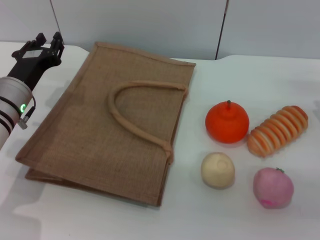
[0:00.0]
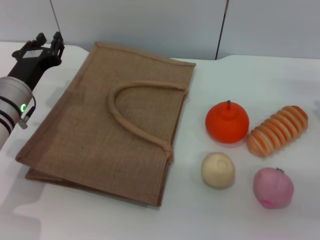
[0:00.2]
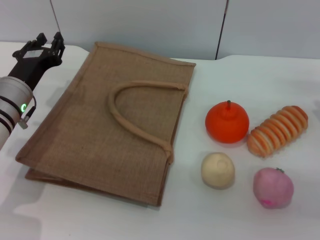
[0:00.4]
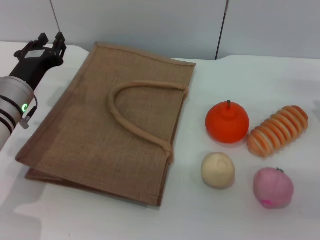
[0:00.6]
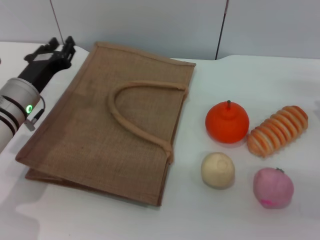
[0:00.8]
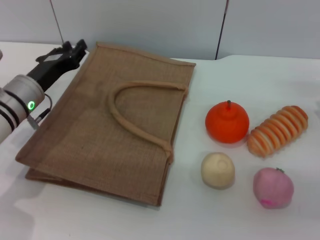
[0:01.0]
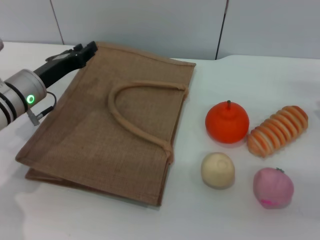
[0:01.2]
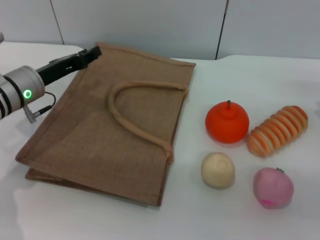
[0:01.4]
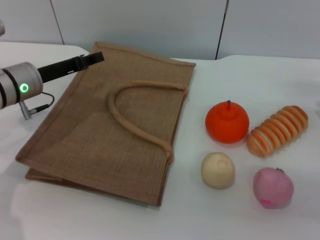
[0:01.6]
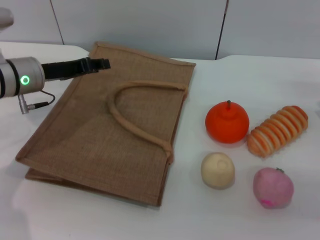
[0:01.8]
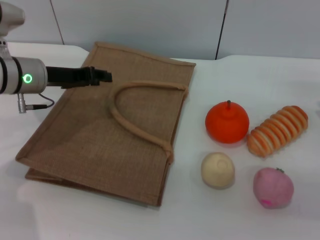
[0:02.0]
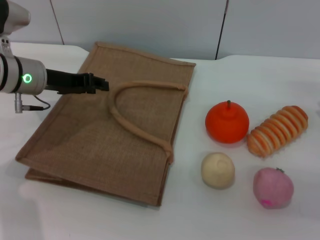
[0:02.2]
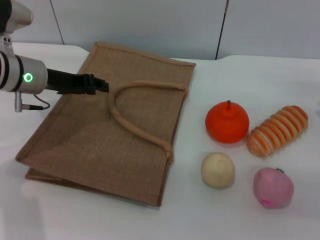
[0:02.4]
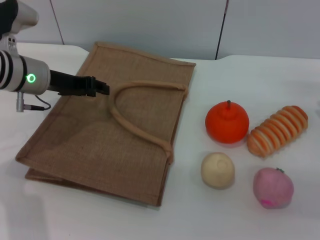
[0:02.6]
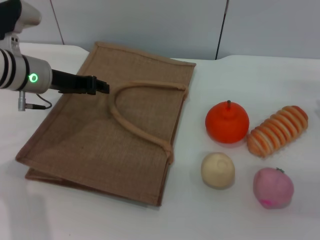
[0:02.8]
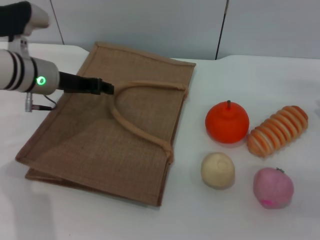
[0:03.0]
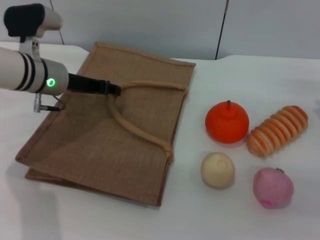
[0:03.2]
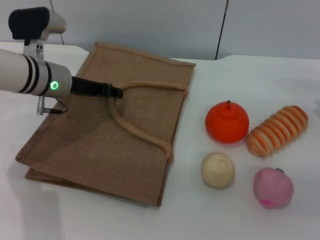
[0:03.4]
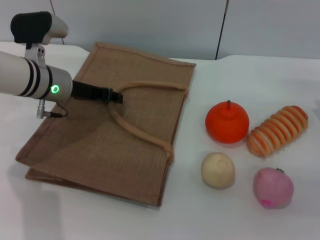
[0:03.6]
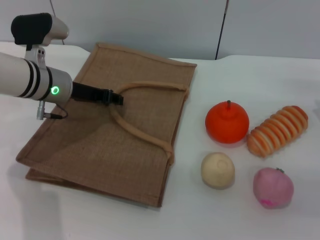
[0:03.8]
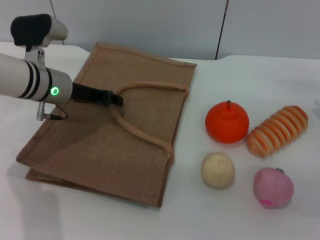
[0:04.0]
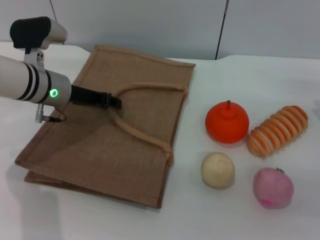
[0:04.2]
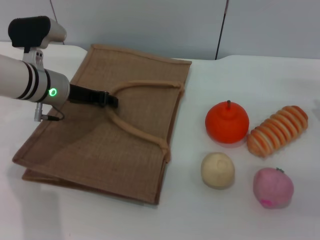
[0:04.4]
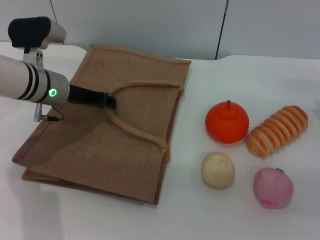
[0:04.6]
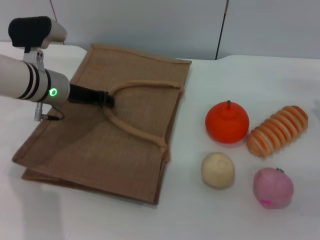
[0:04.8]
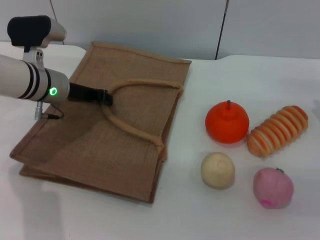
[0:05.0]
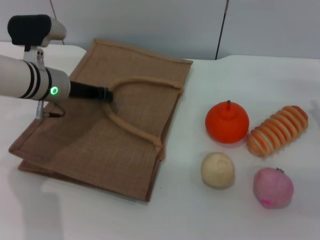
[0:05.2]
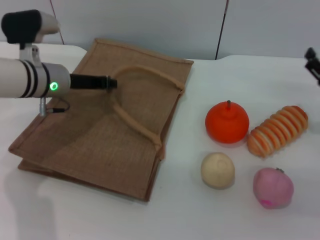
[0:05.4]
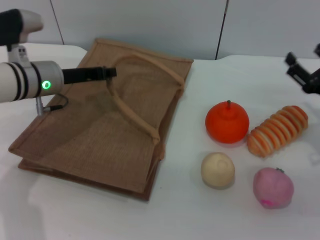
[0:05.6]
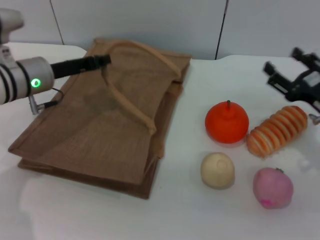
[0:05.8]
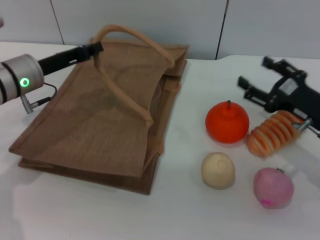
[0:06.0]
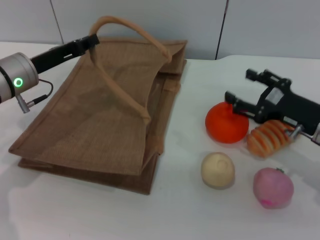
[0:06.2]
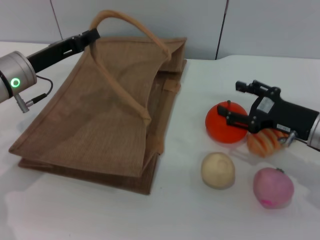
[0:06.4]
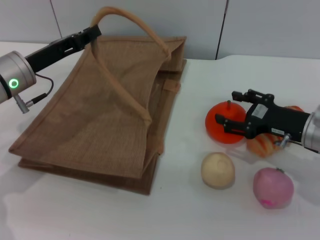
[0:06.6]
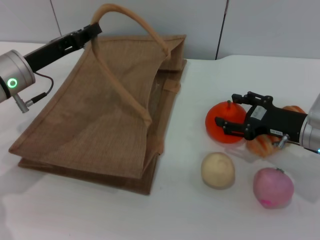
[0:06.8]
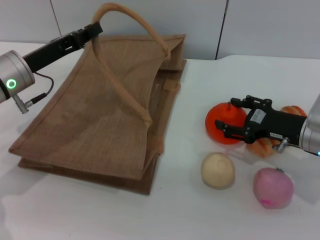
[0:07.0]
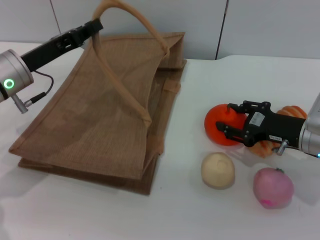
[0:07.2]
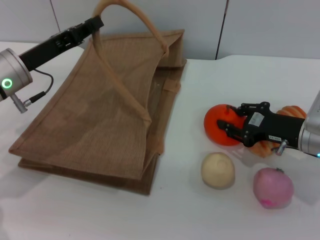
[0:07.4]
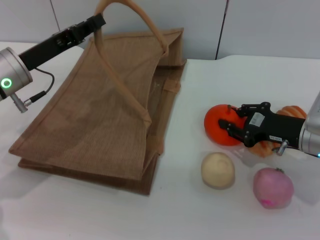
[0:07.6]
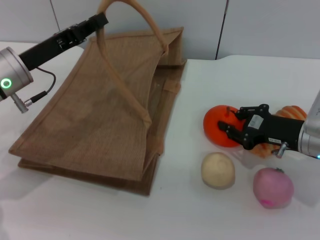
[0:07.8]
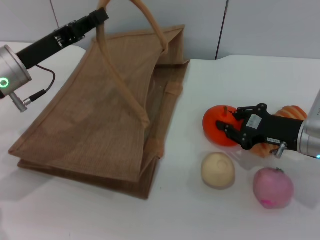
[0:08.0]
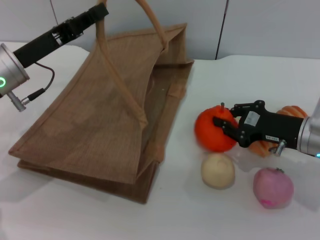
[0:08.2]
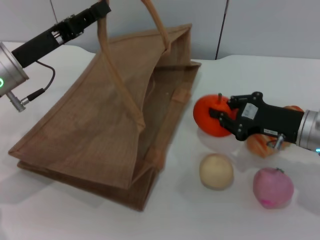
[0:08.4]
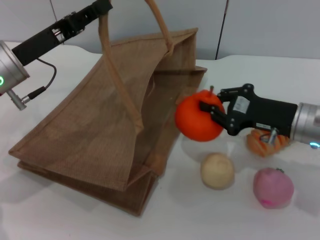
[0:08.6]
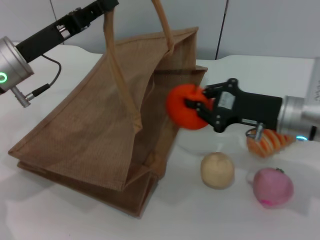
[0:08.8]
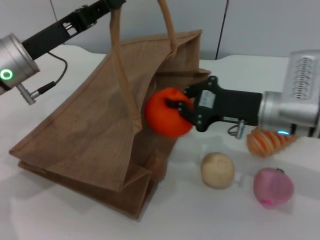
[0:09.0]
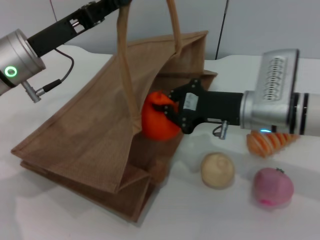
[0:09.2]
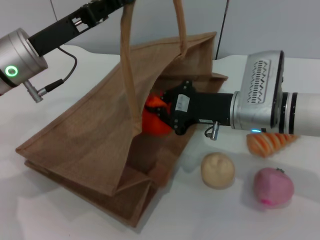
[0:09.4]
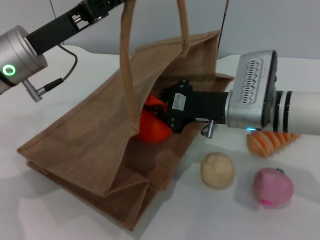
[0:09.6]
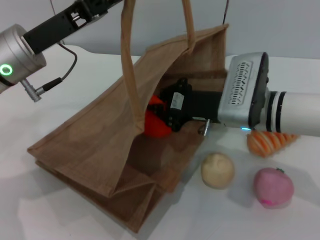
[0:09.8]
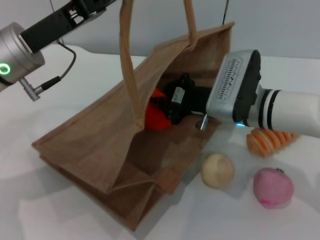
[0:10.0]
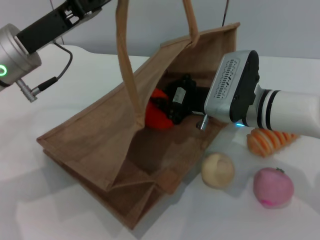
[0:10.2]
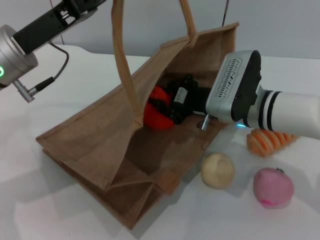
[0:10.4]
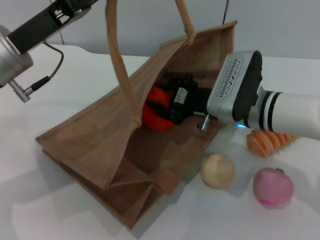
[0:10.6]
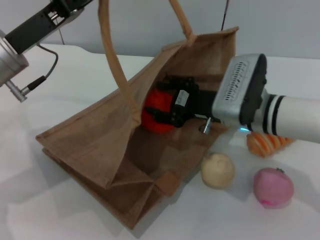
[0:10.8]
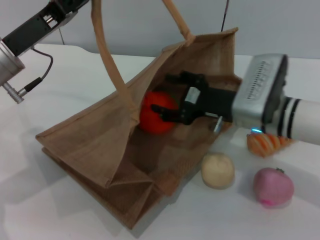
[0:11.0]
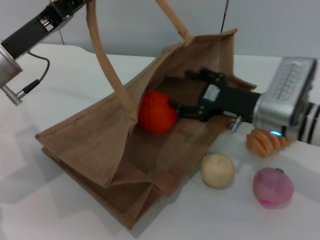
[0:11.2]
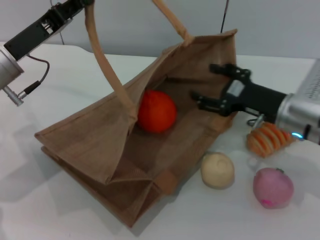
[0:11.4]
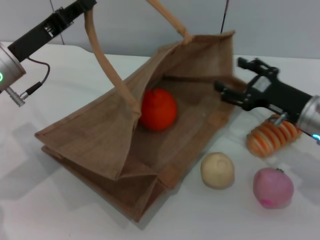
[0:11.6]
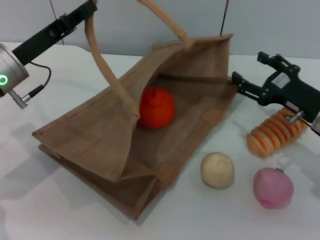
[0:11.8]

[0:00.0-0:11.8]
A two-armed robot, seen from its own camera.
Task of the whole recording: pick up the orange from the table and place it in the brown handbag.
Step, 0:00.0 to 0:05.2: Lift the woven bag with the left gripper to open it.
Step, 0:05.4 to 0:08.2: Pick up the orange with the right gripper.
Step, 0:08.4 to 0:11.4: Place the orange into the woven bag with the right gripper.
0:01.4 to 0:03.0: The left gripper ends up some 5 cm from where it was.
0:03.0 to 0:04.4: The grippers make only small movements.
0:04.4 to 0:06.0: The right gripper is displaced to the left by roughly 5 cm. The left gripper closes its fingers.
0:07.4 to 0:08.8: The right gripper ends up roughly 5 cm from where it was, and closes.
0:08.8 to 0:10.4: The right gripper shifts approximately 10 cm to the left.
0:10.4 to 0:11.8: The left gripper shifts by roughly 5 cm. The right gripper goes about 15 cm to the right, and opens its fingers.

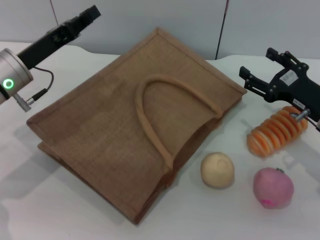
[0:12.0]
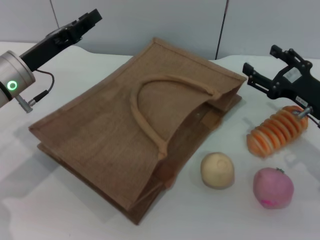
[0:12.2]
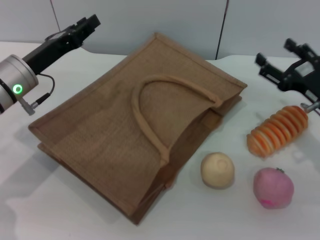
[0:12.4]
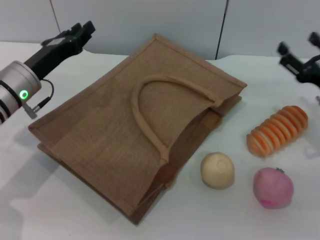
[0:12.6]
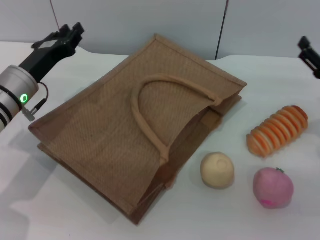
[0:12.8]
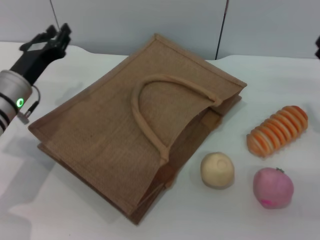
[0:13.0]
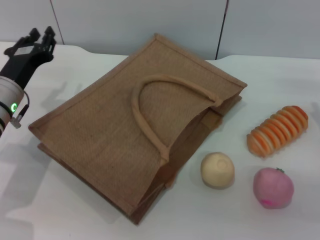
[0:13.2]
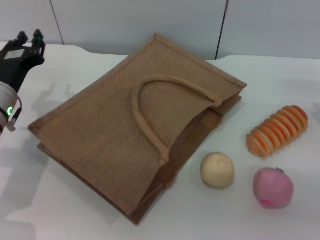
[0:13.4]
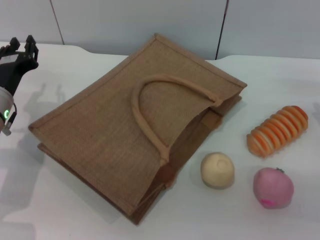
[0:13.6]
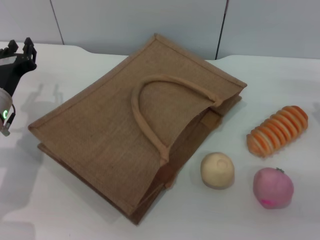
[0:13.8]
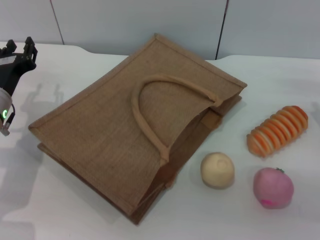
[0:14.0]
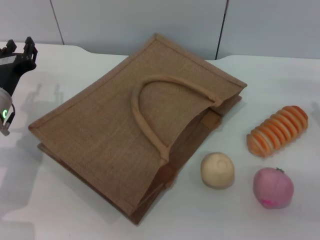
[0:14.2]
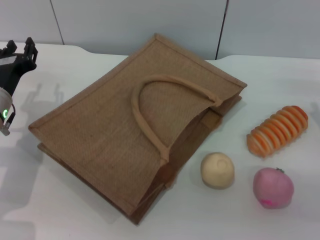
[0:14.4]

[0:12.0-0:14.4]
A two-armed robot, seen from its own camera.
Task of the whole recording: pick up the orange from the table and place it in the brown handbag.
0:12.0 to 0:13.2: The right gripper shifts approximately 5 cm to the right, while the left gripper goes roughly 5 cm downward, and opens.
0:13.2 to 0:14.4: The grippers make only small movements.

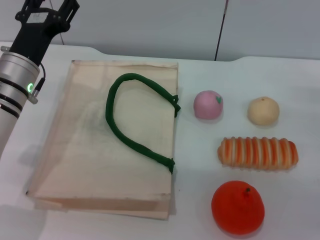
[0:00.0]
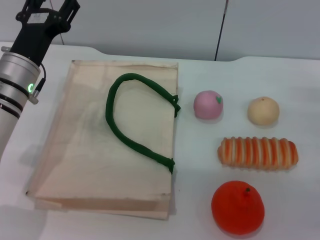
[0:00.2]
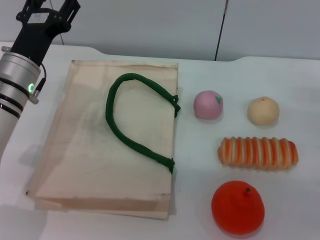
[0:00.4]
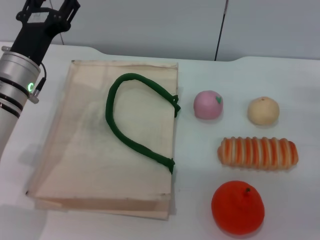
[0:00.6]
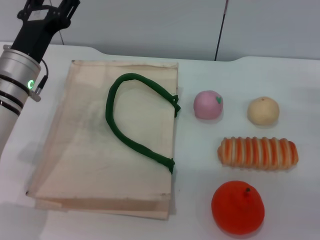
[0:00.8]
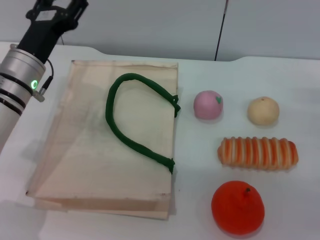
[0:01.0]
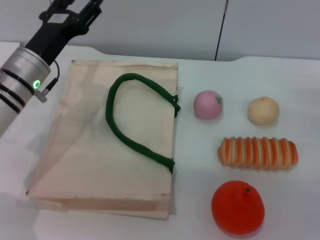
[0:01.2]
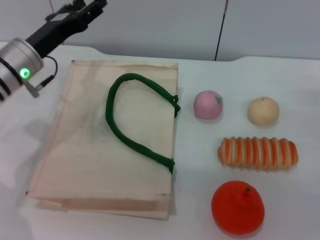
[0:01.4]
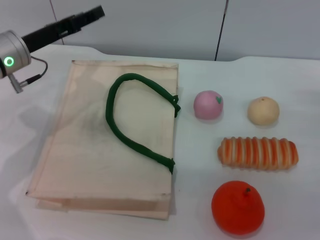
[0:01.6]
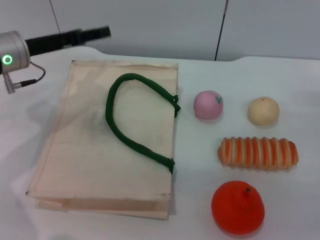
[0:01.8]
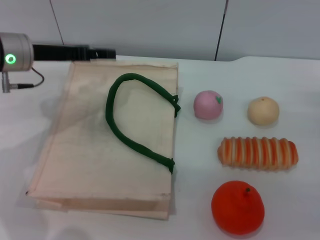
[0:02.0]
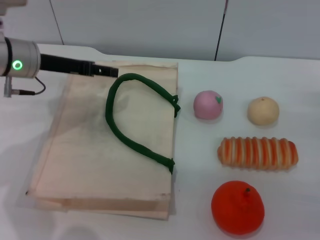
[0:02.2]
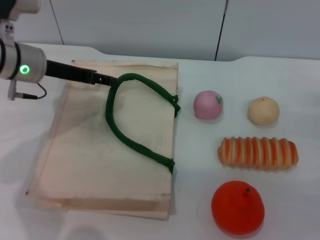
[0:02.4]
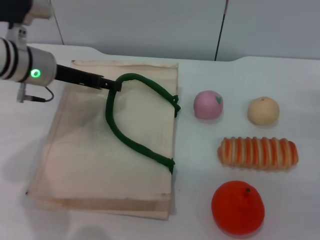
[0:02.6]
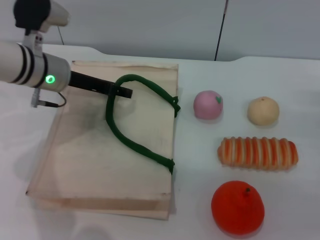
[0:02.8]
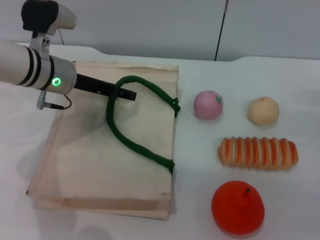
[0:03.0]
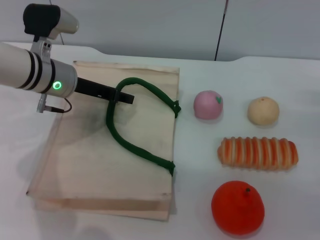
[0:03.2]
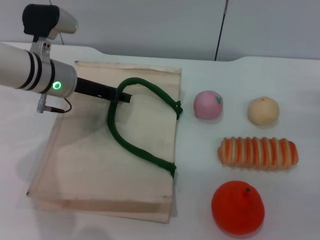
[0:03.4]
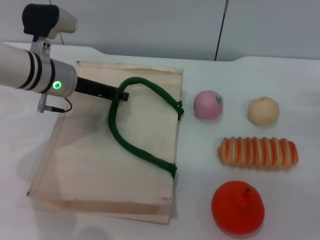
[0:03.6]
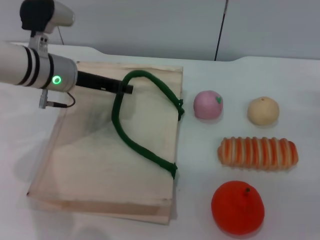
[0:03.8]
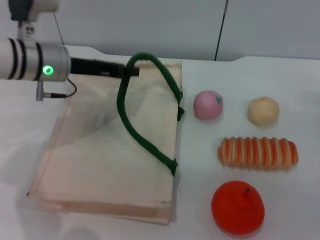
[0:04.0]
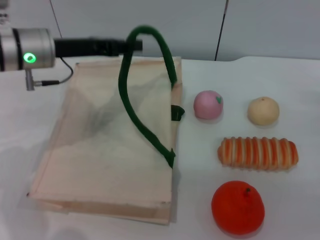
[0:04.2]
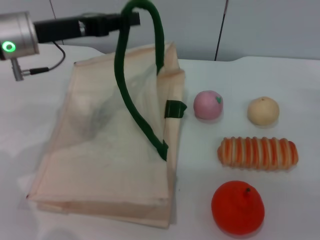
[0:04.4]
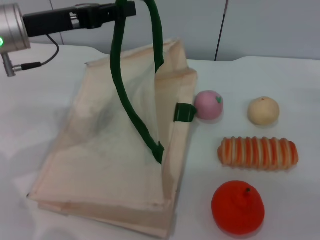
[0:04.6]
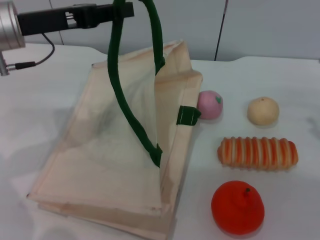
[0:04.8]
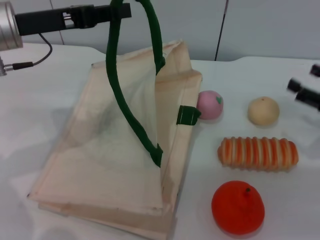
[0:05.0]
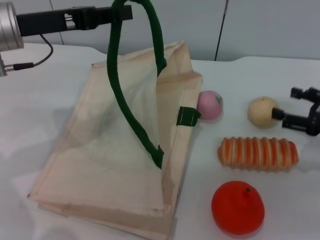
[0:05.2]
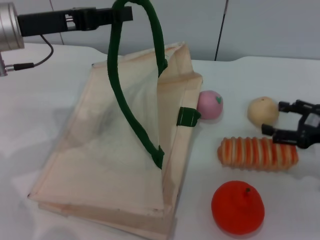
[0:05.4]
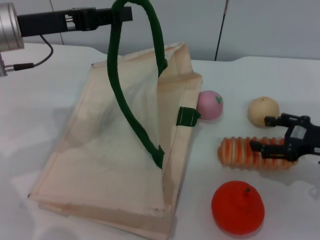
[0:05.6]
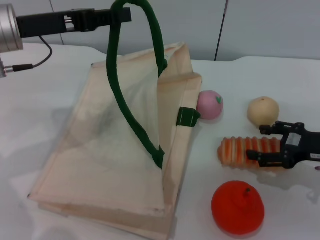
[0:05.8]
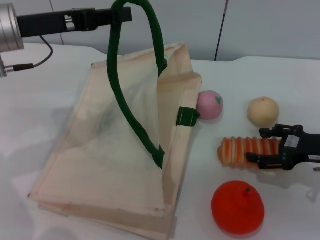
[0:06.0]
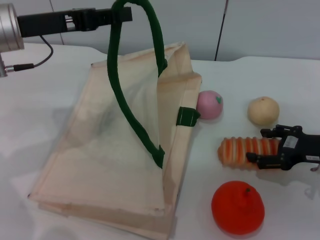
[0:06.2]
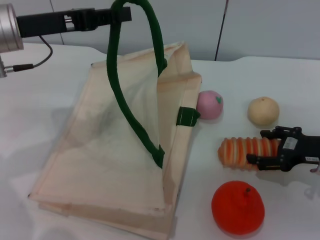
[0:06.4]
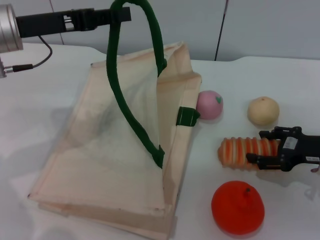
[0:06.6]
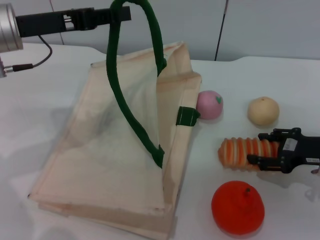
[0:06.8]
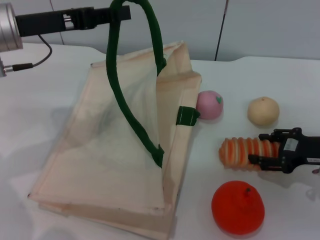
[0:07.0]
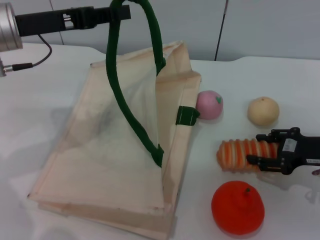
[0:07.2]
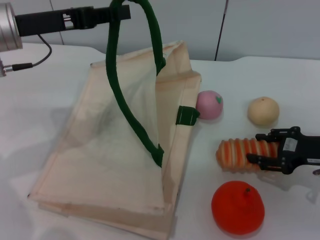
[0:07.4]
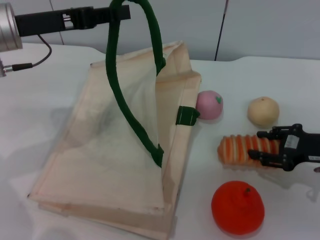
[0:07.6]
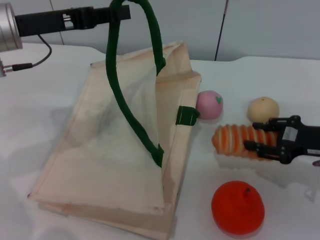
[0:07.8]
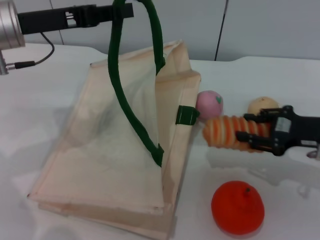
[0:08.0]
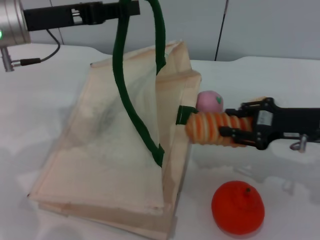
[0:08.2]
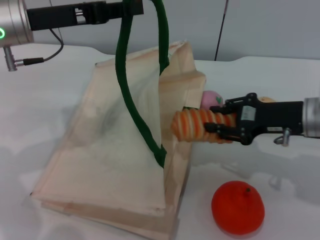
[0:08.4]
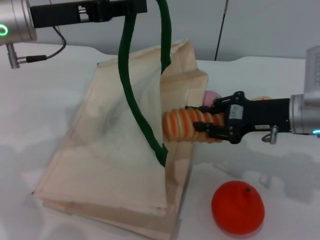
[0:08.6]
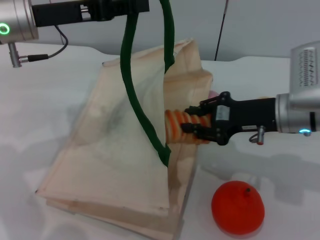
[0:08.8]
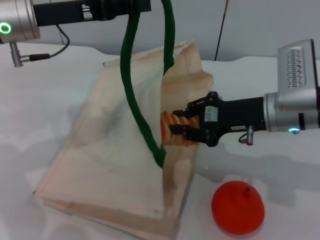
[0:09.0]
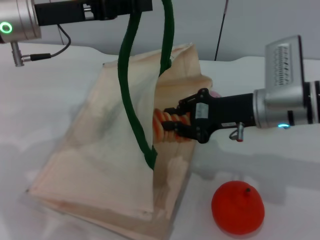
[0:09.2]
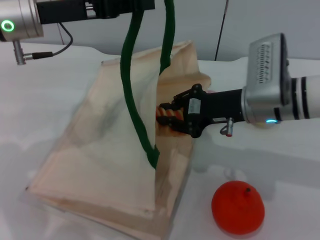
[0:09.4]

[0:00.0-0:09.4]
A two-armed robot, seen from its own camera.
Task of the whole recording: pick up the bread from the table and place it in the white handbag.
Step, 0:00.0 to 0:04.6: Lift the woven bag with the left gripper to open it.
Step, 0:04.8 to 0:07.8: Pick up the bread with the right gripper.
0:00.0 to 0:01.6: The left gripper moves roughly 5 cm.
0:01.6 to 0:03.2: The left gripper moves to the right, about 5 cm.
0:03.2 to 0:04.8: The left gripper heads upward, covering approximately 10 cm, and closes its fingers.
0:04.8 to 0:06.2: The right gripper heads to the left, covering some 5 cm.
0:06.2 to 0:07.8: The right gripper closes.
0:07.8 to 0:09.4: The right gripper moves to the left, roughly 15 cm, and closes its fingers.
